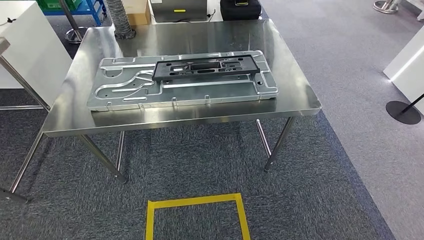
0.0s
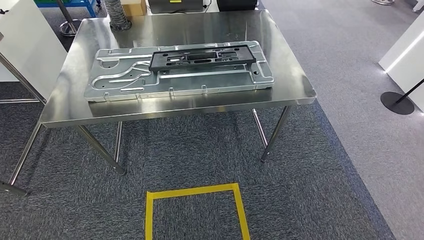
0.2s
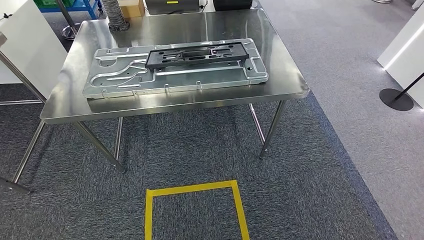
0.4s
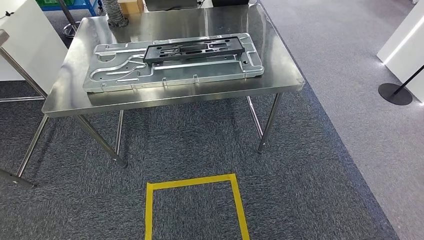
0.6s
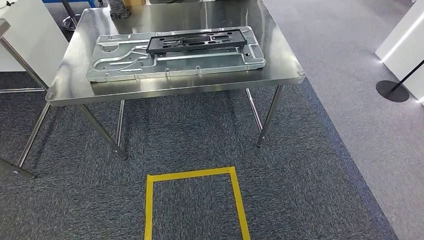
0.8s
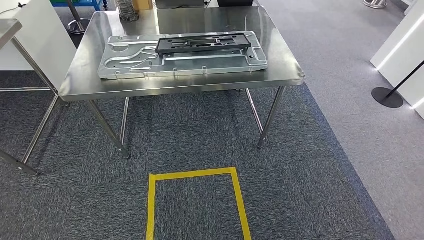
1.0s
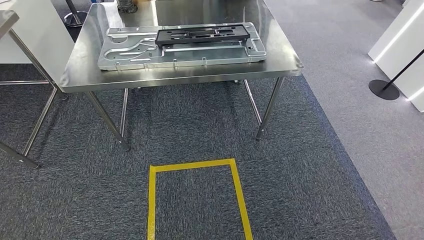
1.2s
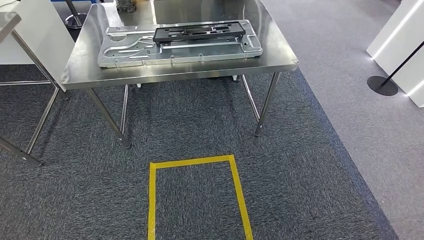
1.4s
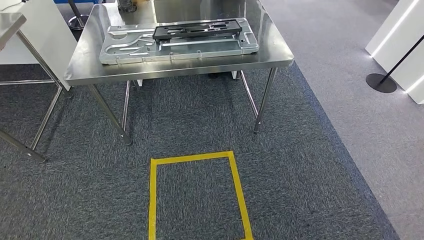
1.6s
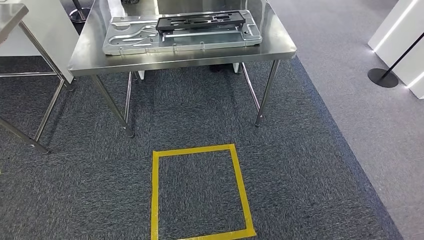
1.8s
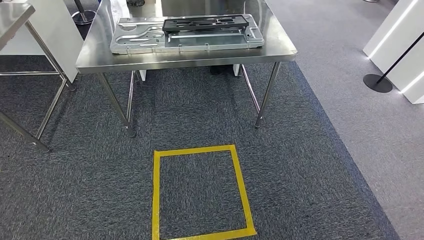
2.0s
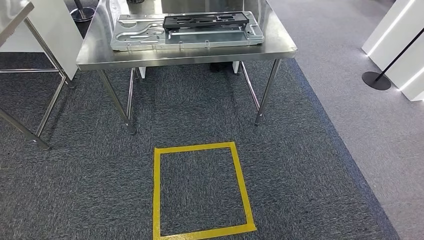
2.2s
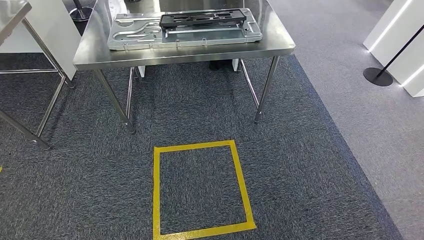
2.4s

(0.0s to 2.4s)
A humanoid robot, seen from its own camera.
Step, 0.0s - 2.4s: Move to the initial position of the shelf.
